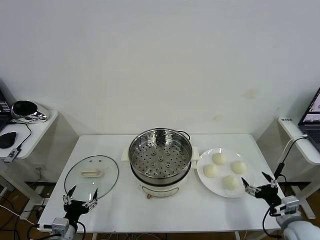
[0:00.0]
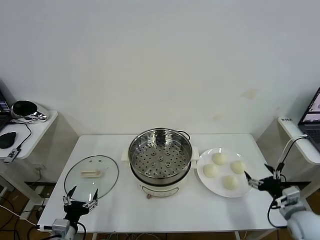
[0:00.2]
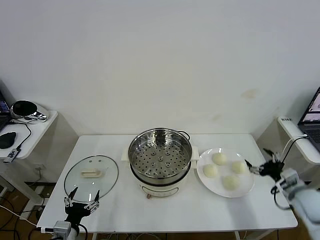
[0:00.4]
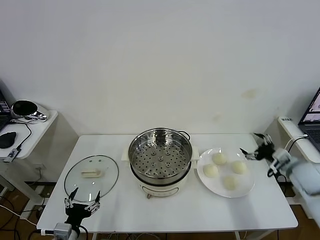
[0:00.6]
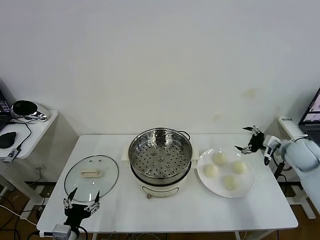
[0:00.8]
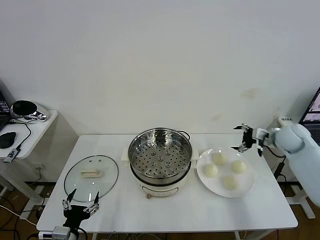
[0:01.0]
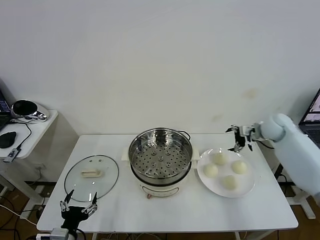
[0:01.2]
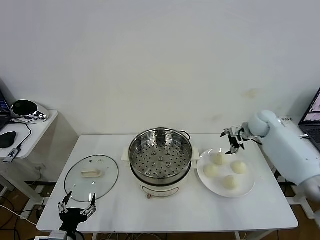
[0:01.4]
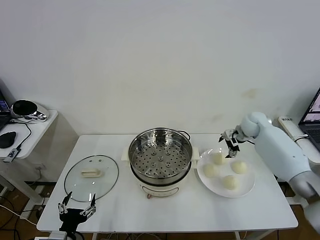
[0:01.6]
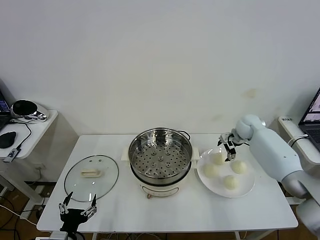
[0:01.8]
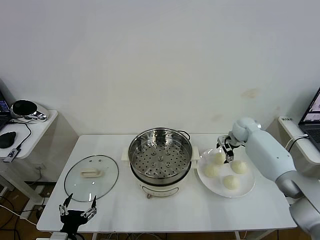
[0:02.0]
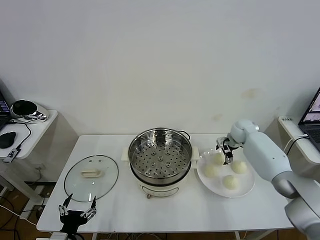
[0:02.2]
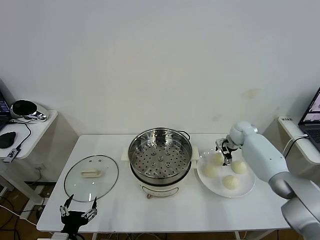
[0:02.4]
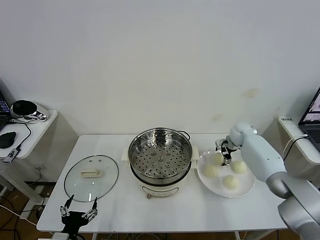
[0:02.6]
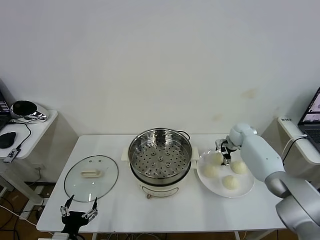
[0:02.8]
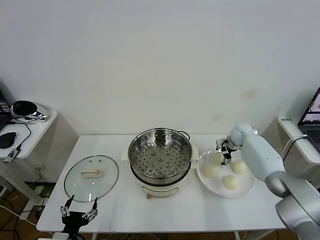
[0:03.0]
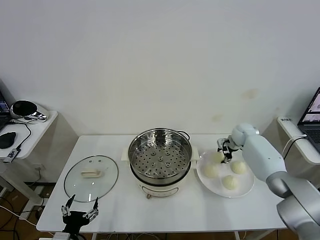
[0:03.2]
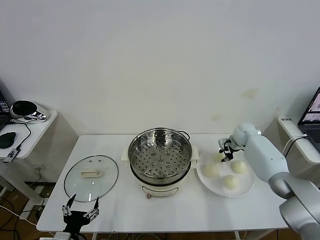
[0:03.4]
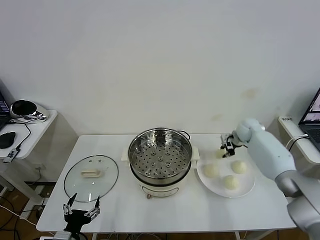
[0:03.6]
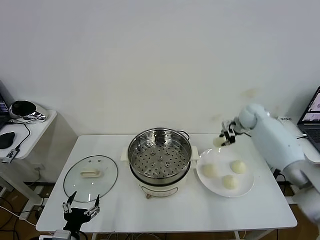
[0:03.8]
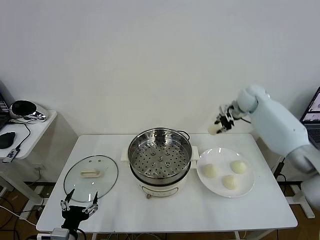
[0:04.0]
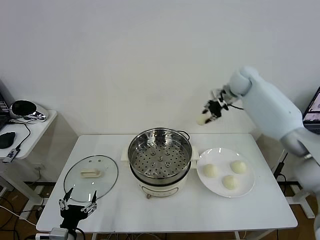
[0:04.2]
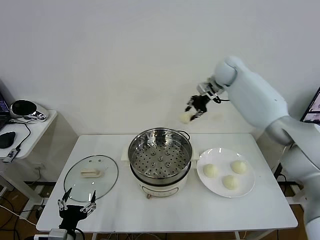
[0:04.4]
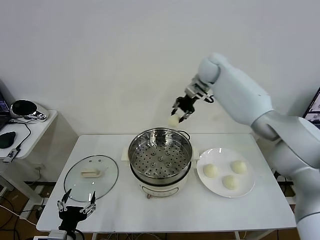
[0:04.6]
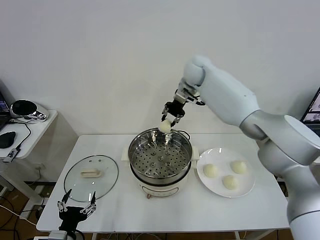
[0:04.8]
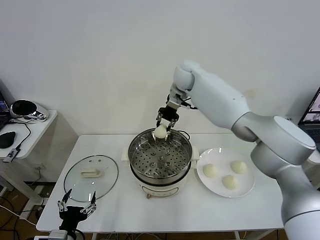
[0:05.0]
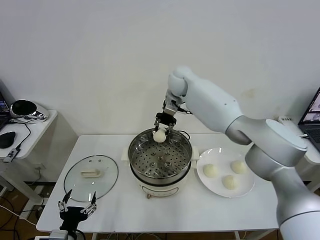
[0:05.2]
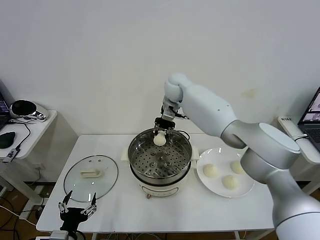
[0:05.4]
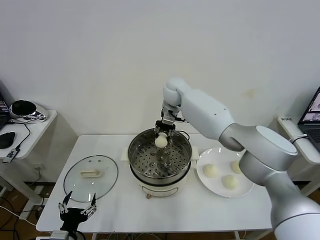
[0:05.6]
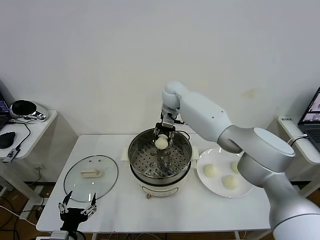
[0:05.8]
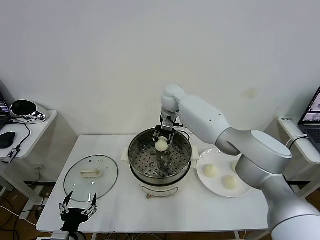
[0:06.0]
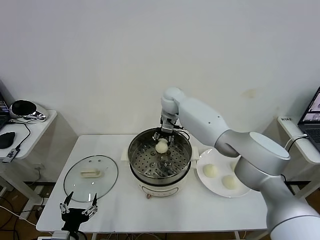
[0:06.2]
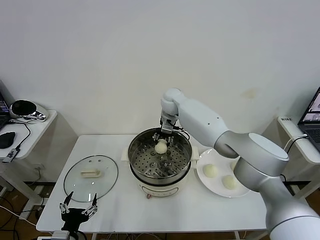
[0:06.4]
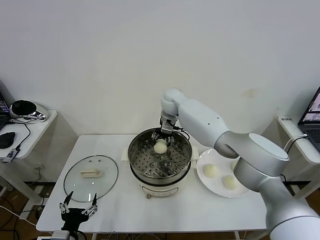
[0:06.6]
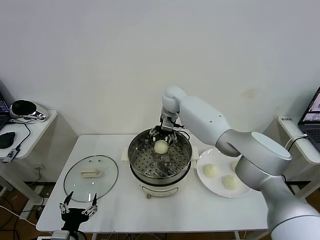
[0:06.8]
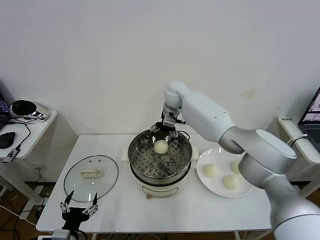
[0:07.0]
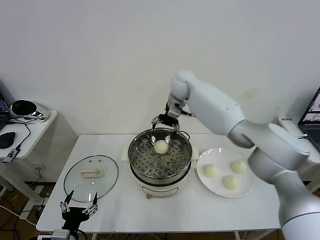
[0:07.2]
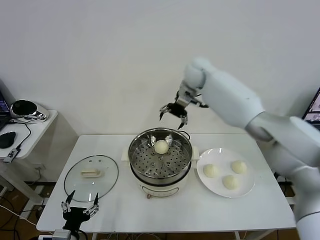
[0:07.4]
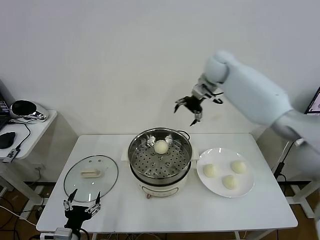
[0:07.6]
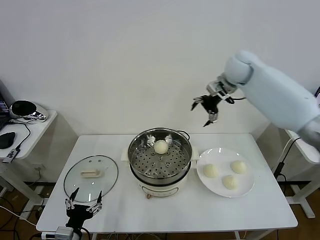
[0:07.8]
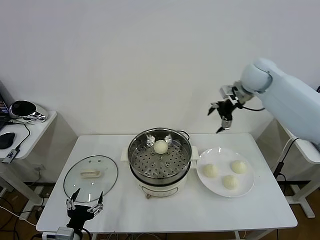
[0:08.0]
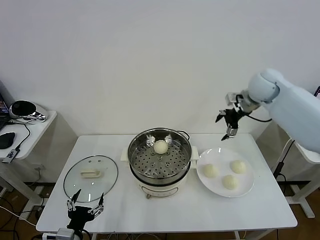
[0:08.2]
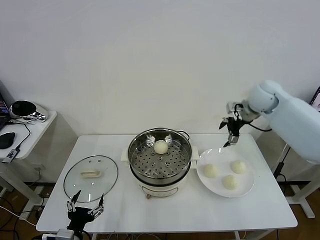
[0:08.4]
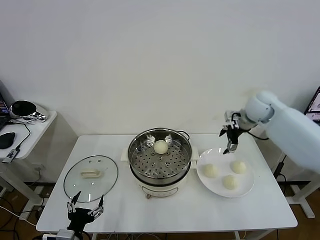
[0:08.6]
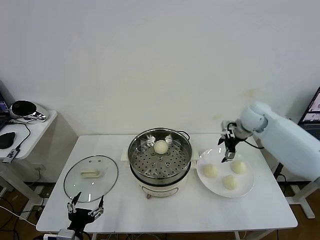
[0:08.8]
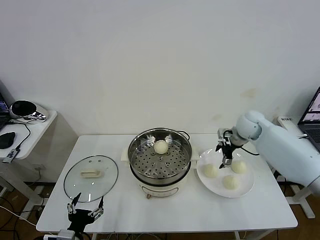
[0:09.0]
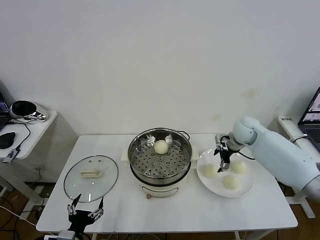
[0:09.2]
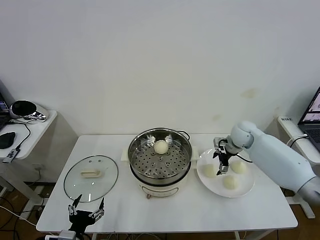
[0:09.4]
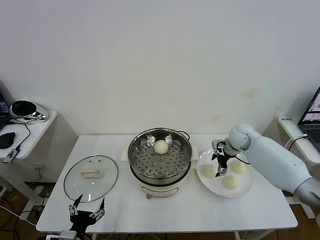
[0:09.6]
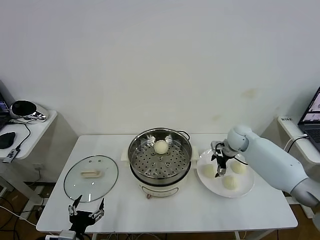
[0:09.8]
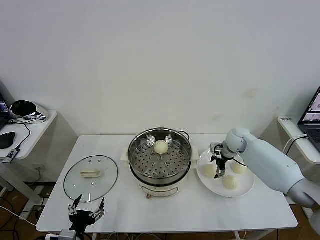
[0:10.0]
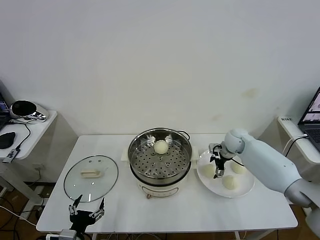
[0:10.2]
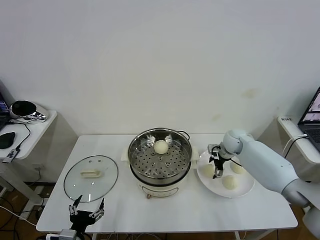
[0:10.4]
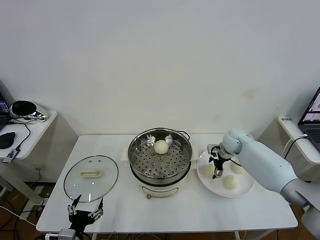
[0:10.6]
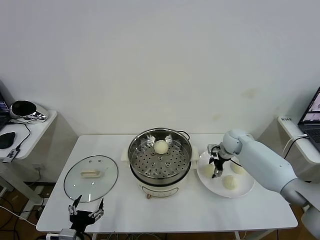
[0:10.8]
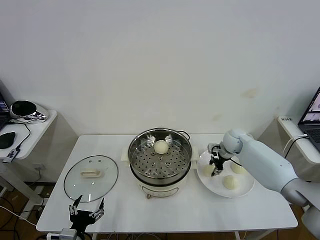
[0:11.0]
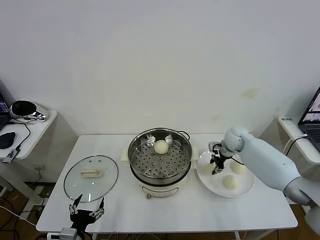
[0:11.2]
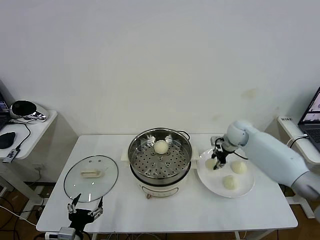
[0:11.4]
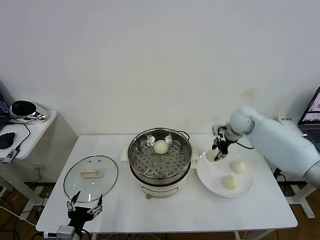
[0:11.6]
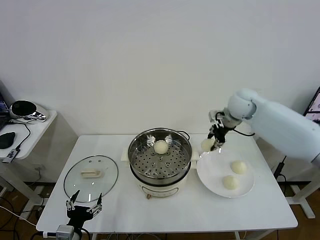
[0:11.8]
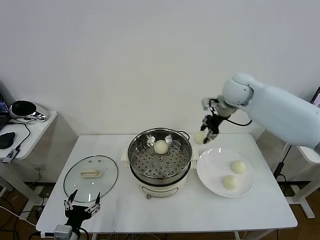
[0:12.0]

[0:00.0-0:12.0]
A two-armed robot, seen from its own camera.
Task of the whole recording: take steamed baozi put them in steamer then cover it.
Step, 0:00.0 to 0:03.0: Grasp the baozi in the plate with right gripper.
Step, 0:03.4 to 0:06.8: Place the baozi on the steamer with right gripper.
Step, 0:07.2 to 0:10.8: Grasp the baozi in the plate with right gripper.
0:01.6 to 0:03.0: The right gripper moves downward, approximately 5 cm.
0:03.0 to 0:04.4: The right gripper shifts about 30 cm upward and to the left, and closes.
0:04.4 to 0:06.0: The right gripper is displaced to the left and downward by some 20 cm.
0:06.0 to 0:07.6: The right gripper shifts roughly 25 cm to the right and upward, and opens its fingers.
0:07.6 to 0:09.0: The right gripper moves downward and to the right, about 20 cm.
0:09.0 to 0:10.4: The right gripper goes roughly 10 cm downward.
0:10.4 to 0:12.0: The right gripper travels upward by some 25 cm, and closes.

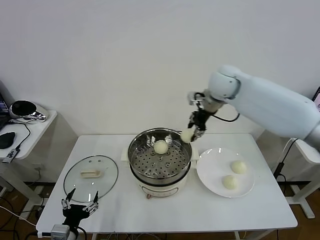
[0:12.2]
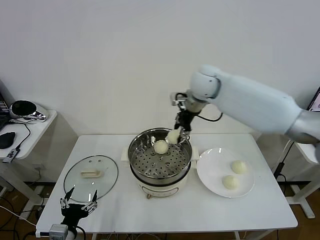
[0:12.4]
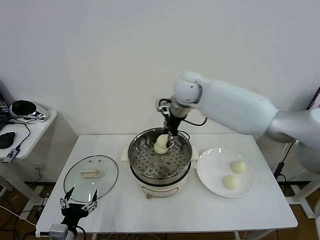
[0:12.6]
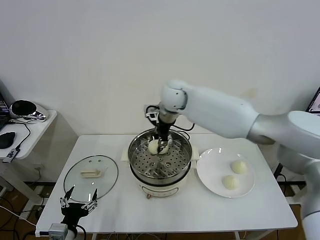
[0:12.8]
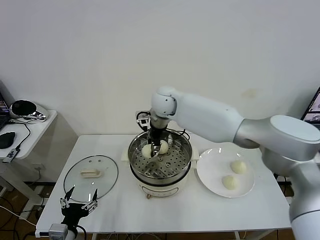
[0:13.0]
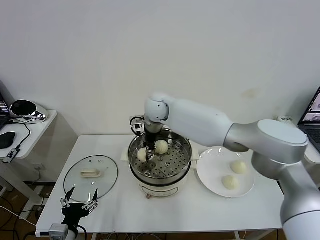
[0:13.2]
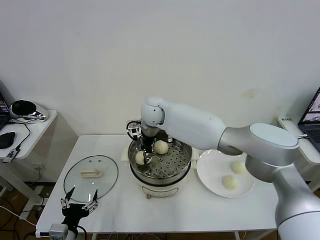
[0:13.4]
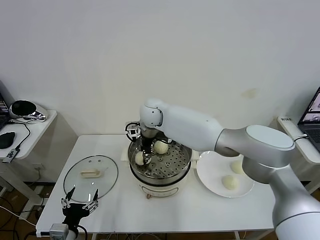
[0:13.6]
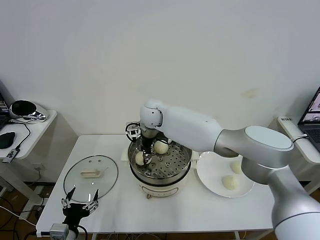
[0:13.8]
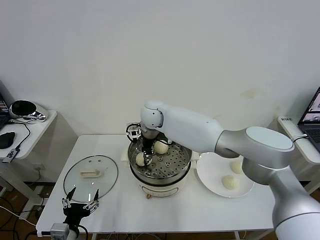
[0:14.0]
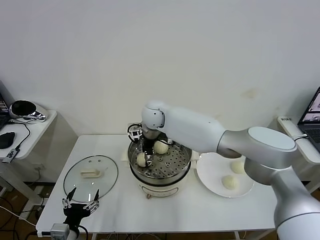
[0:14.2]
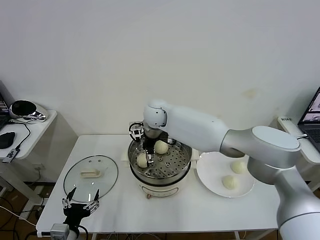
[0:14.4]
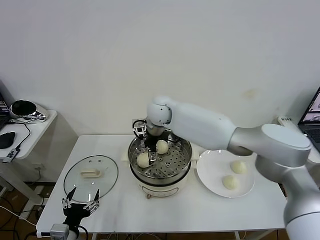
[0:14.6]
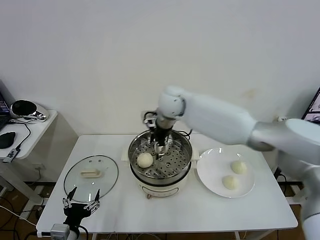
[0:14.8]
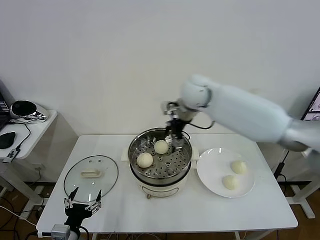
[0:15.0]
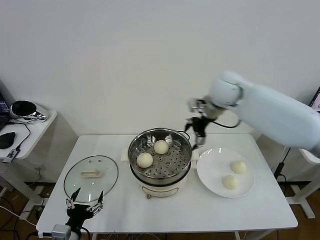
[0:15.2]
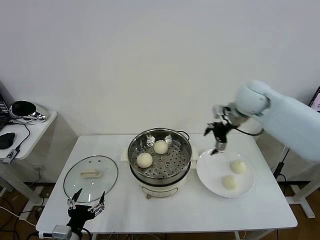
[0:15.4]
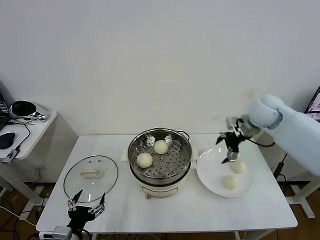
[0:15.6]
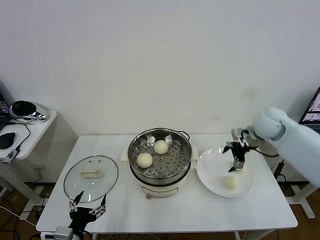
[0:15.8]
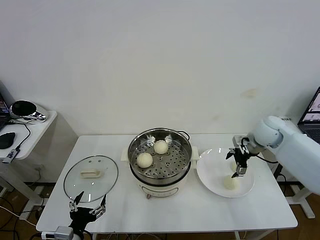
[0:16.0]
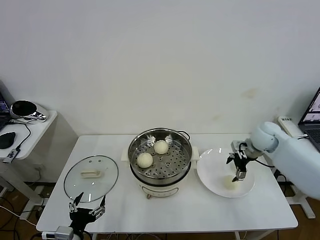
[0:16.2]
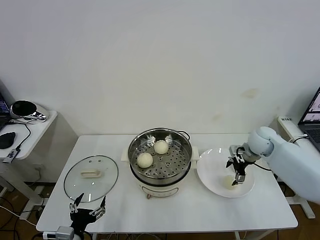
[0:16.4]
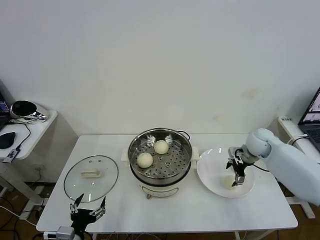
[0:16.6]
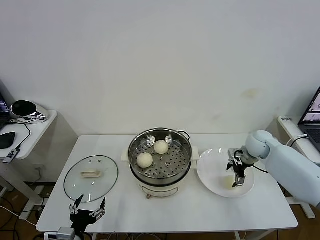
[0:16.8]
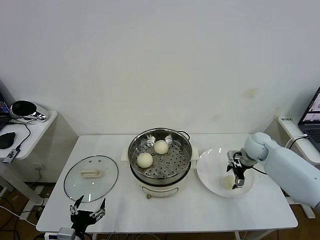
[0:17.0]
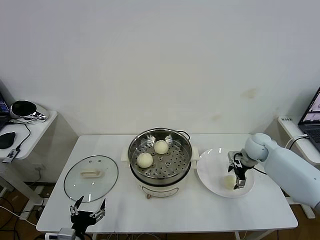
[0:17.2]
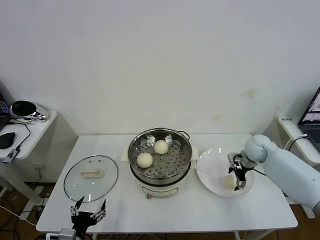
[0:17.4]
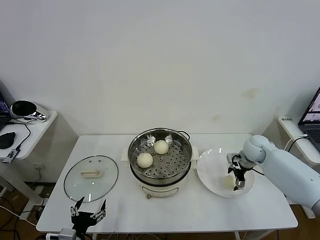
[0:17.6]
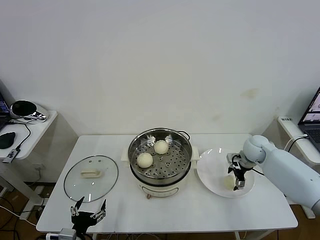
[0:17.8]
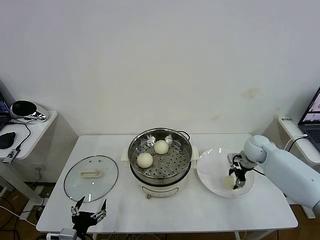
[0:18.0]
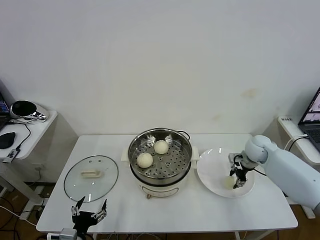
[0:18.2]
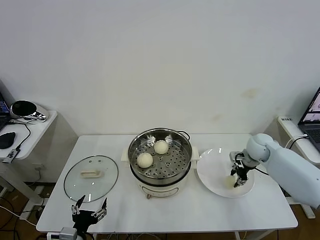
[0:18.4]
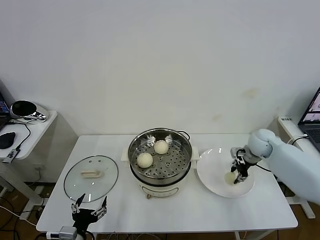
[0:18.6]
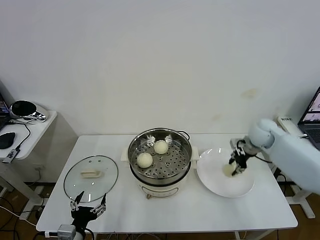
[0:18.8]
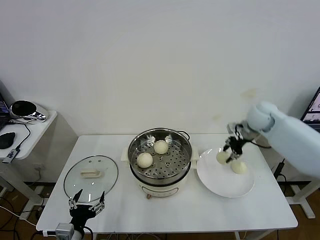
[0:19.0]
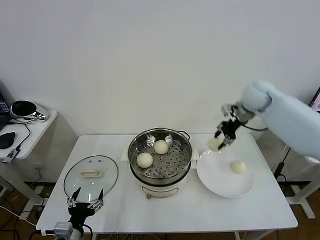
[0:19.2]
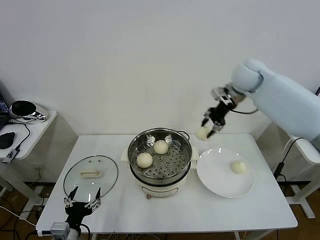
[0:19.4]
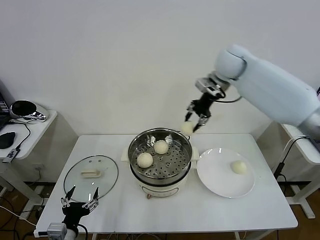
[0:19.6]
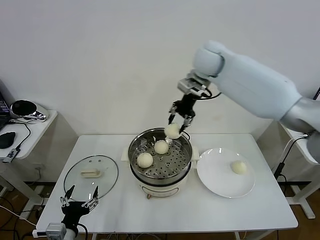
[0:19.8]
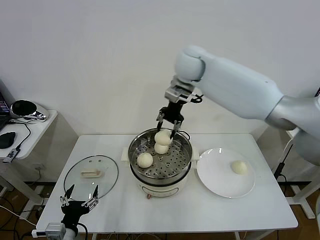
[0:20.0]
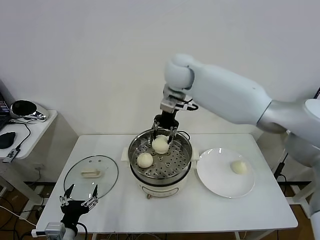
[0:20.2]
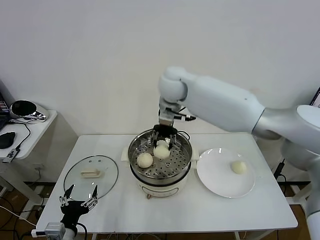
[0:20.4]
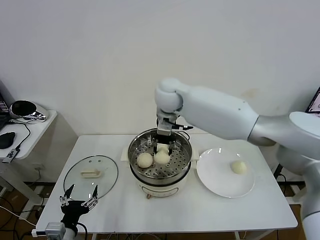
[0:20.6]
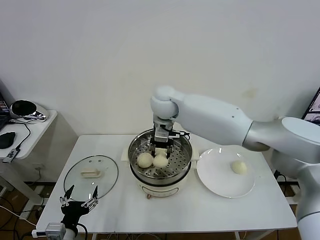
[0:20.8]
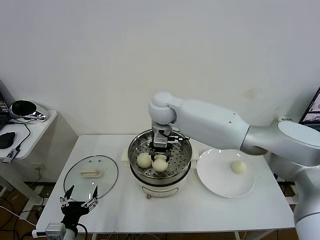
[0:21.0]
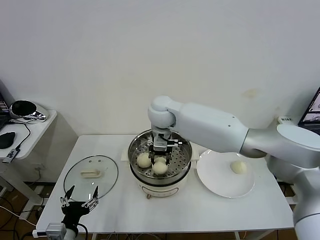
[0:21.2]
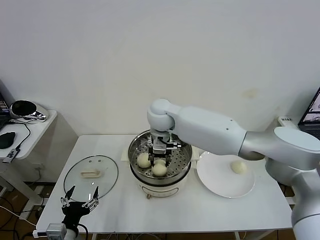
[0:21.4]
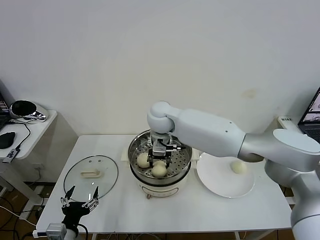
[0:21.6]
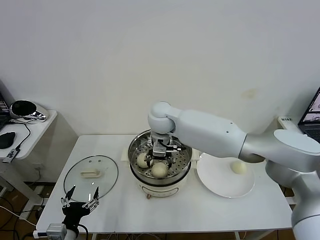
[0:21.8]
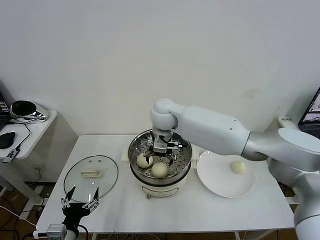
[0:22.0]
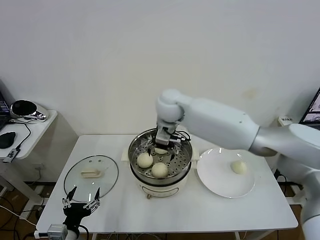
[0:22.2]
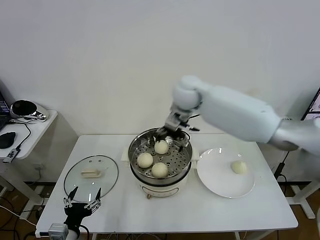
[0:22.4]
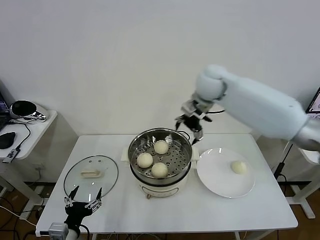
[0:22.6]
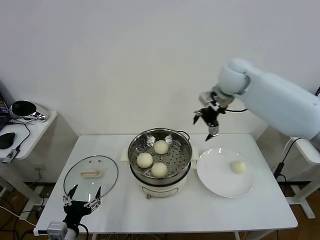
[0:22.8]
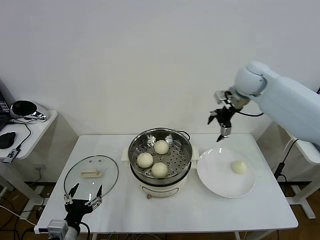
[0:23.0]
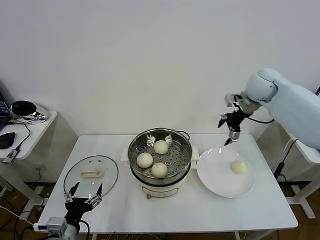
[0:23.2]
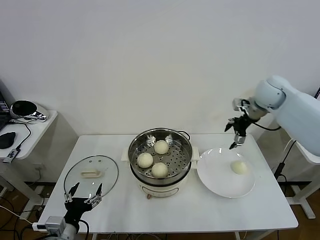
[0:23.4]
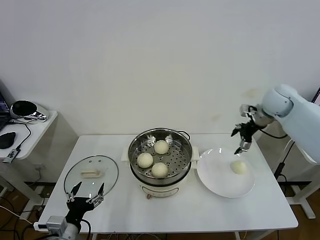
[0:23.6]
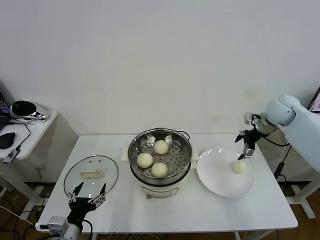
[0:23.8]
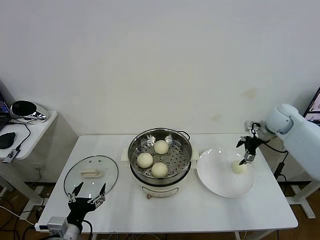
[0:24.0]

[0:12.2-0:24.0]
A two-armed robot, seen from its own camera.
Task of the whole recording: take steamed baozi put them in steamer then cover it.
Step, 0:12.2 to 0:14.6: Place the baozi on the steamer with right gripper.
Step, 0:14.8 to 0:18.0: Grasp the baozi in the plate with right gripper.
Step, 0:18.2 to 0:21.8: Place the baozi on the steamer with right gripper.
0:12.2 to 0:13.6: The right gripper travels to the left and downward by roughly 25 cm.
0:13.6 to 0:15.2: The right gripper travels to the right and upward by about 30 cm, and opens up.
0:15.2 to 0:16.6: The right gripper is displaced downward and to the right by some 25 cm.
0:16.6 to 0:18.2: The right gripper closes its fingers.
0:18.2 to 0:19.6: The right gripper heads upward and to the left, covering some 35 cm.
0:19.6 to 0:21.0: The right gripper shifts about 20 cm to the left and downward.
0:21.0 to 0:22.6: The right gripper is displaced to the right and upward by approximately 20 cm, and opens up.
0:22.6 to 0:24.0: The right gripper is displaced to the right and downward by roughly 30 cm.
